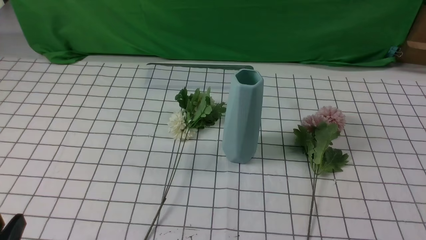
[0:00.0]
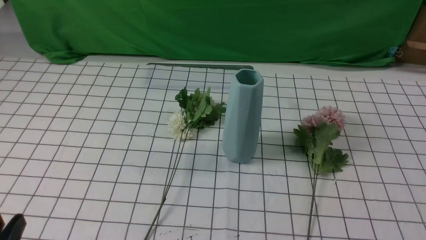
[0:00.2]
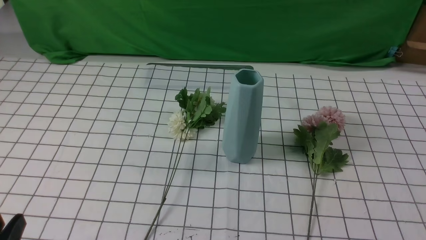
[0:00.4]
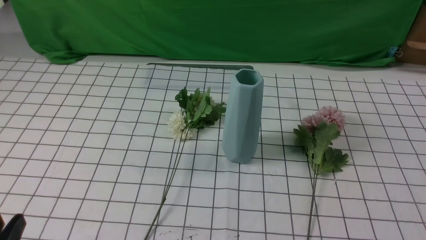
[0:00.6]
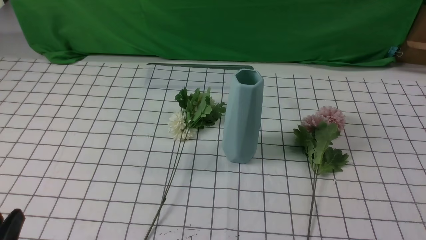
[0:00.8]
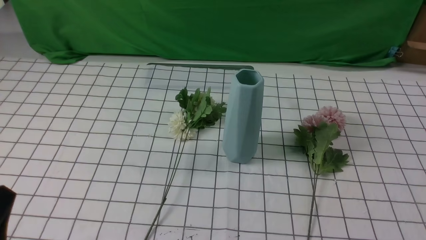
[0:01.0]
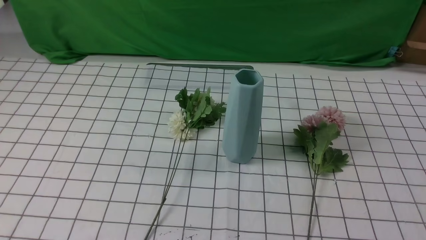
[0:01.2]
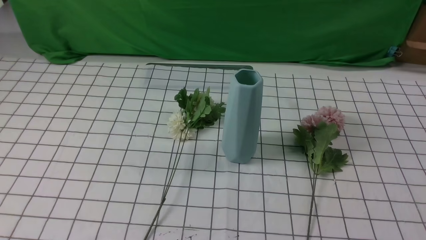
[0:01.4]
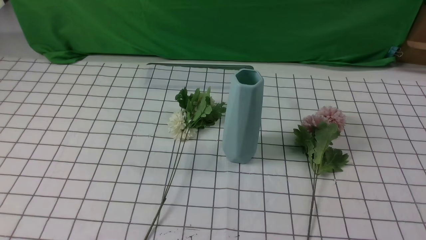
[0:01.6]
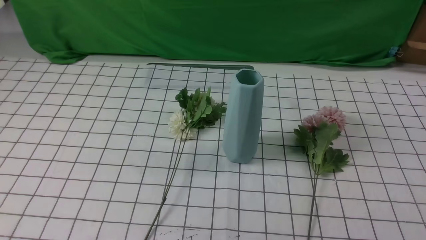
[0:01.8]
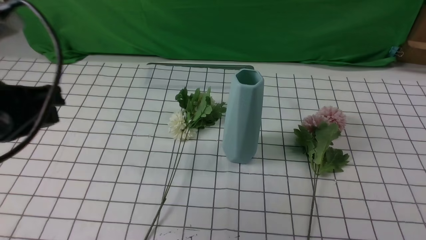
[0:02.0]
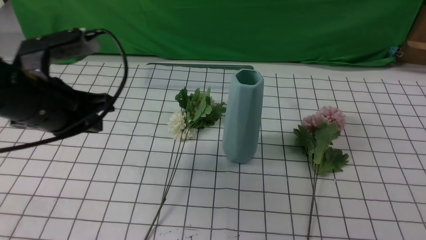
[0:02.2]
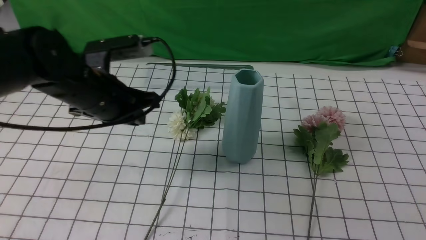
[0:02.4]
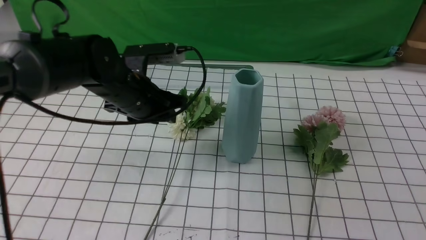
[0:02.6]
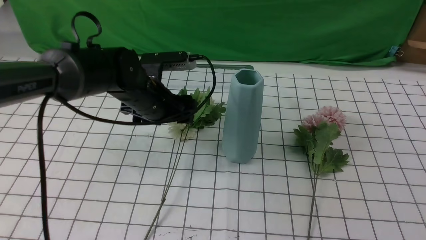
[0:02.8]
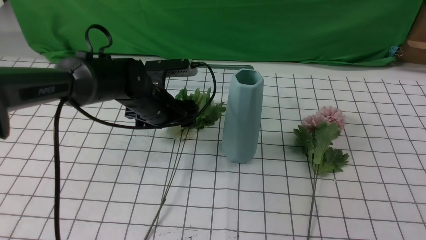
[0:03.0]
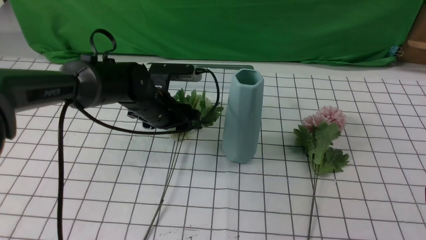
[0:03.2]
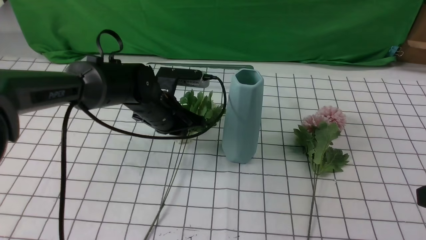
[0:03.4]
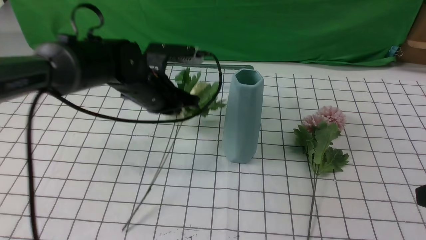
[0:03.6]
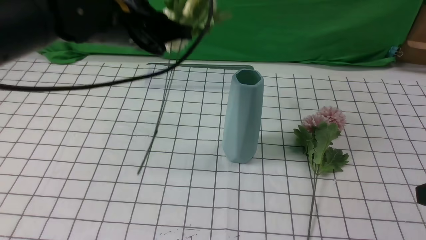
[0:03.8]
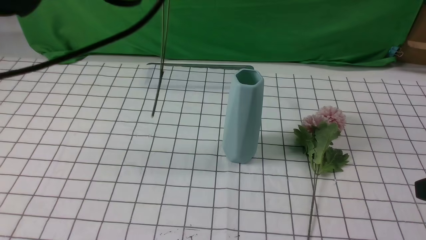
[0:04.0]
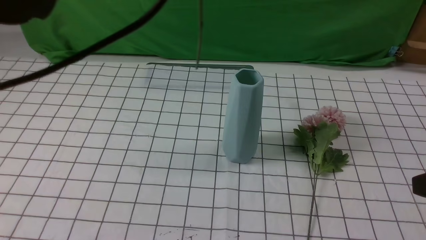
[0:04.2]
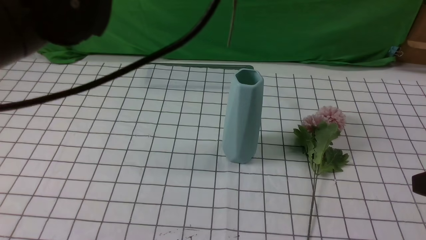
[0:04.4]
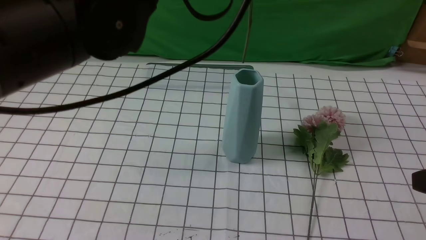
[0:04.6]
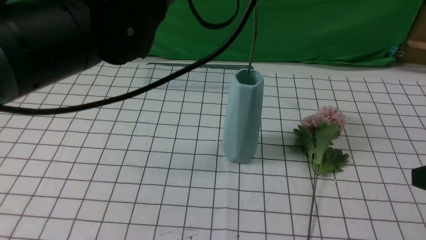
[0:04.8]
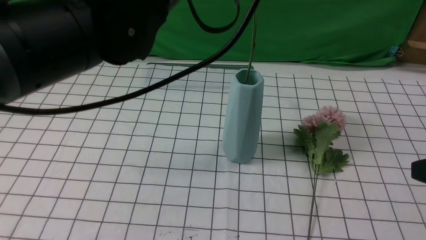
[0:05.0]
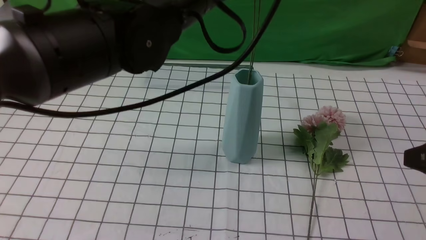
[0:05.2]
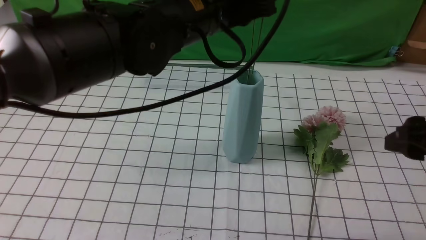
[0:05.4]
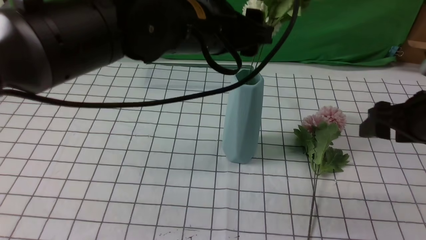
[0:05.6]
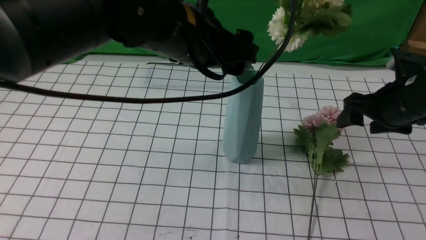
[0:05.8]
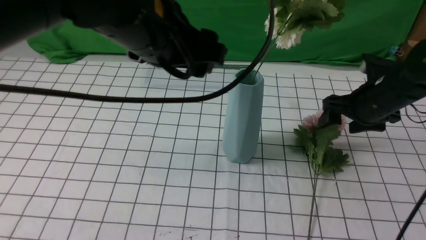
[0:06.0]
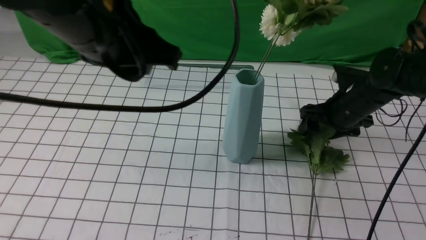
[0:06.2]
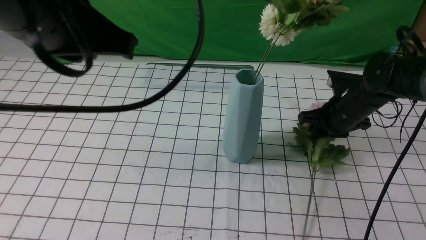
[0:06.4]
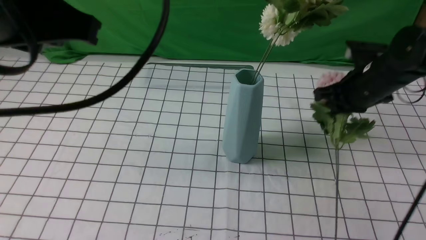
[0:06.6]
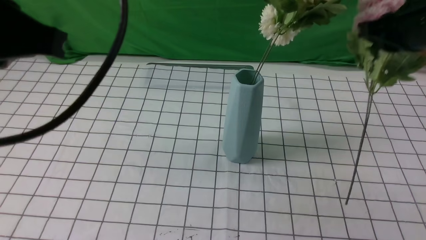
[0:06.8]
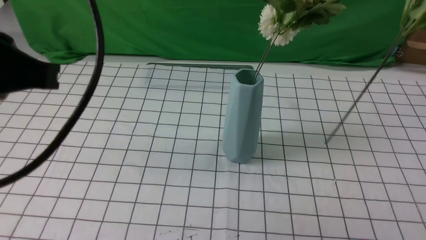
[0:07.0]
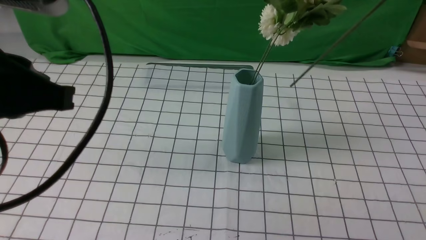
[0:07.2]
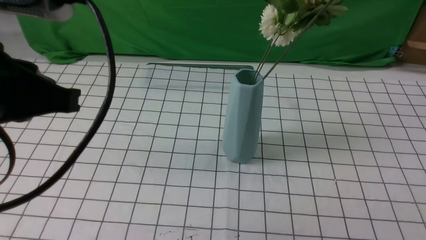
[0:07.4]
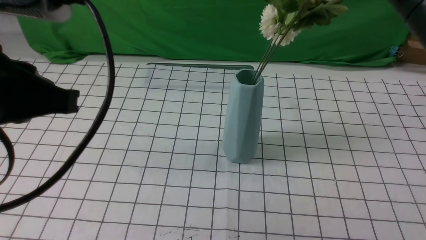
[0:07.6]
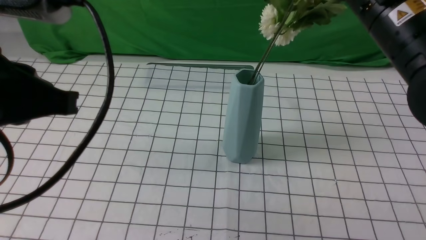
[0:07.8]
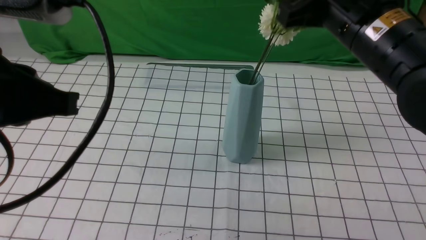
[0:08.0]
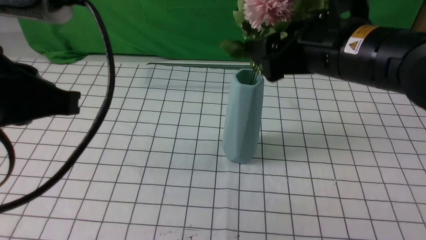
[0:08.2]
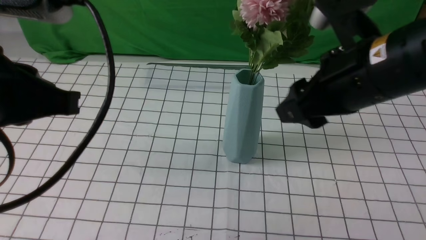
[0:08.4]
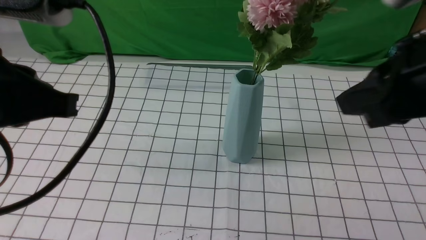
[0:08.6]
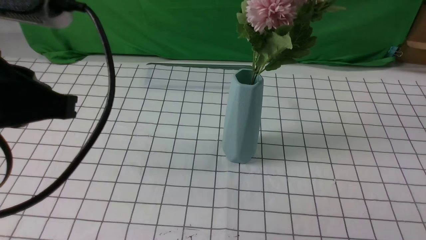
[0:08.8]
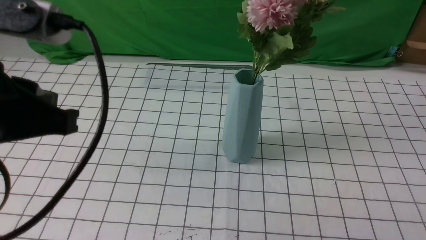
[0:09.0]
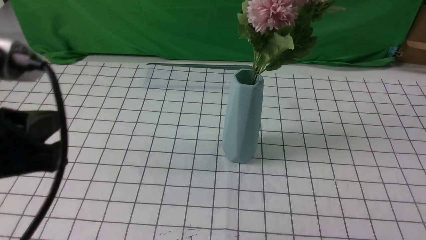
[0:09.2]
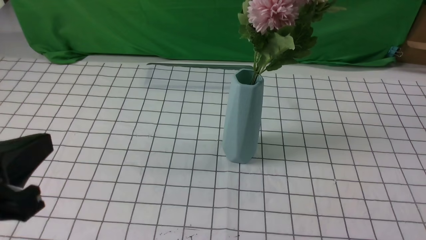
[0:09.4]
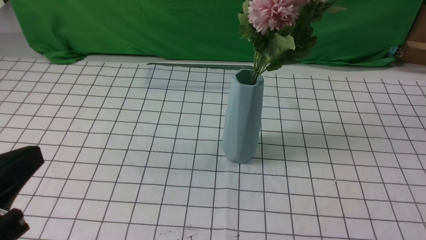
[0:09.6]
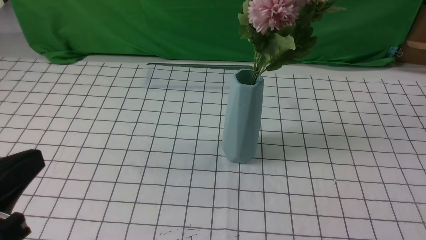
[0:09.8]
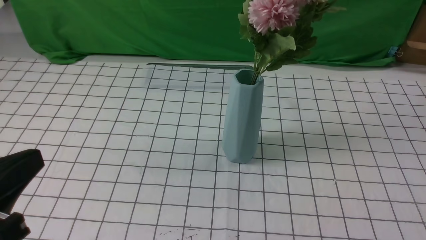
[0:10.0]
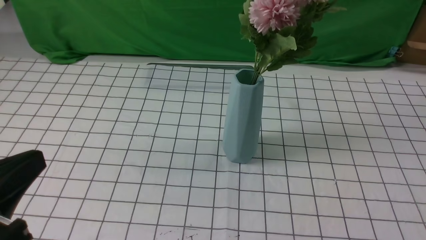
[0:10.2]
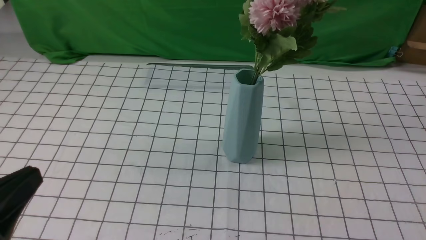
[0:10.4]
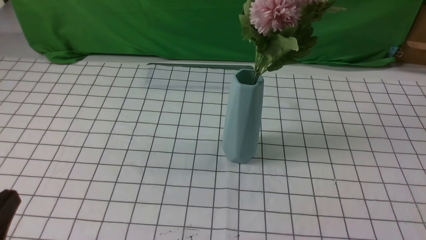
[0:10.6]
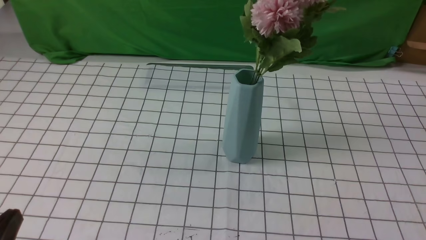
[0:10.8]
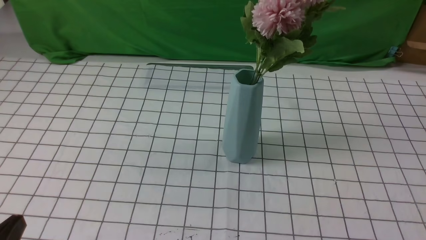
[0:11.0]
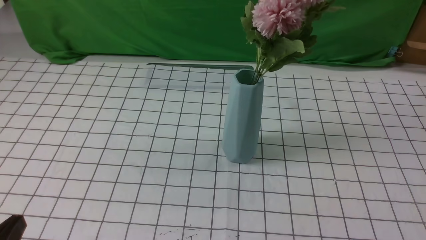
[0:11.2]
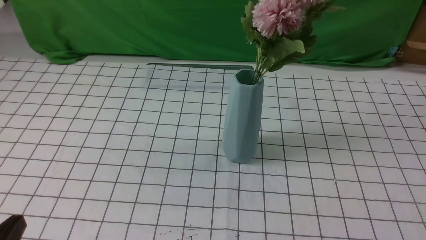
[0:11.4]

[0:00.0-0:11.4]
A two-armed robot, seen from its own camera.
Task of the whole recording: insert the flowers into the vase on the table with the white tablecloth.
Step, 0:00.0 to 0:03.4: use the left arm to grab a bunch of fresh flowers.
Step, 0:03.6 to 0:05.8: use the left arm to insert the flowers into the vase.
Step, 0:06.0 to 0:06.4: use the right arm to grab a bunch of fresh flowers.
Step, 0:06.6 to 0:08.4: use the right arm to insert the flowers into the vase.
0:01.4 to 0:02.8: The right gripper is displaced upward and forward by some 15 cm, and opens up. Meanwhile the left gripper moves forward and to the right, about 35 cm, and opens.
0:02.8 to 0:04.2: The left gripper goes about 25 cm upward, and closes.
0:04.2 to 0:05.6: The right gripper shifts approximately 15 cm forward; the left gripper travels downward and to the right by approximately 10 cm, and opens its fingers.
0:05.6 to 0:07.2: The right gripper travels upward and backward by roughly 20 cm, and closes. The left gripper moves backward and to the left, roughly 20 cm, and closes its fingers.
0:07.2 to 0:08.6: The right gripper opens, then closes again.
0:08.6 to 0:10.0: The left gripper moves backward and downward, approximately 10 cm. The right gripper shifts roughly 20 cm backward, downward and to the right.
0:10.0 to 0:11.4: The left gripper goes roughly 10 cm downward.

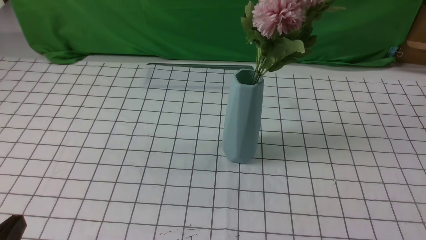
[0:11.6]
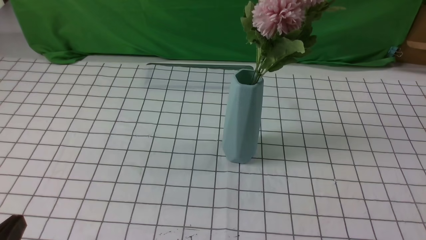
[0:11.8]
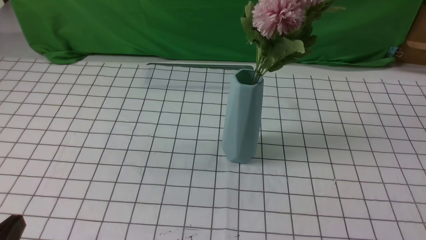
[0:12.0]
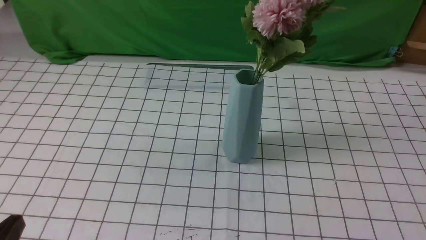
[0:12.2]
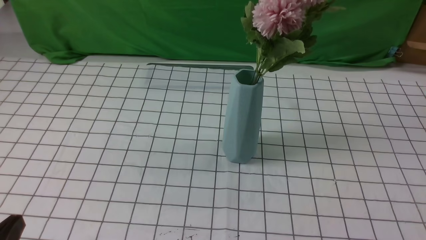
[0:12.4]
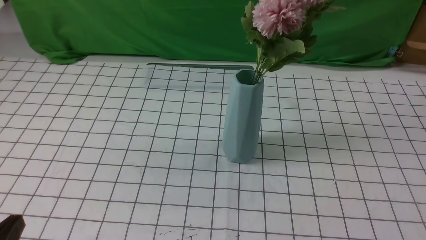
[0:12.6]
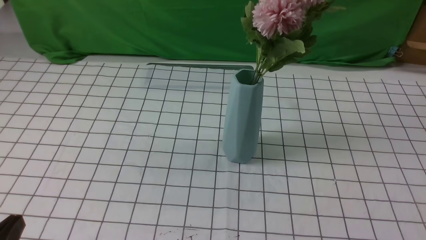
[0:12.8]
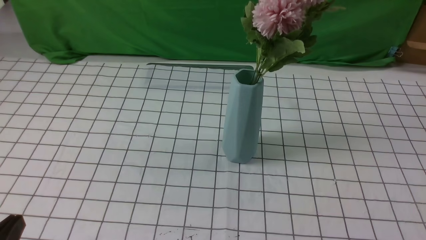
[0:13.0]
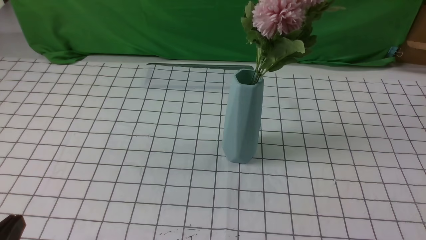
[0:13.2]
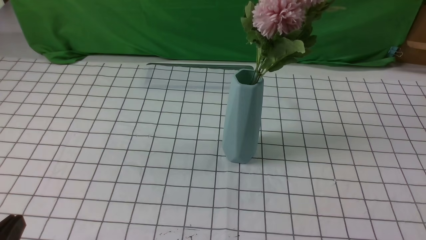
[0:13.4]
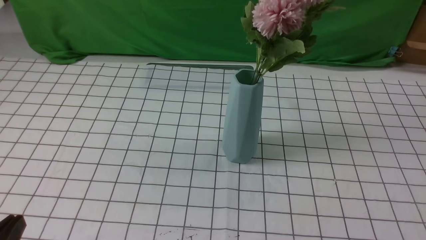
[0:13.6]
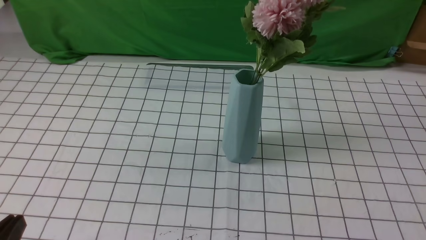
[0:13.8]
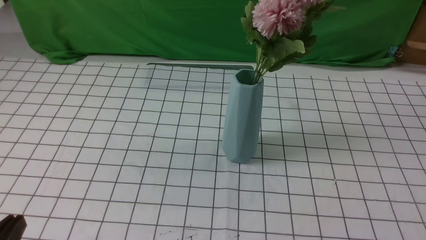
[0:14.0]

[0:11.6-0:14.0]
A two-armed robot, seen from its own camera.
Task of the whole recording: insert the flowers into the vase on the table with the white tablecloth.
0:12.8 to 0:14.0: Neither gripper changes place.
